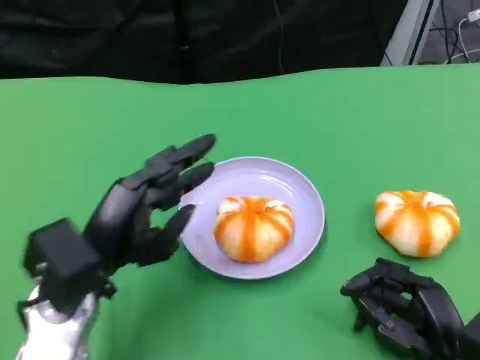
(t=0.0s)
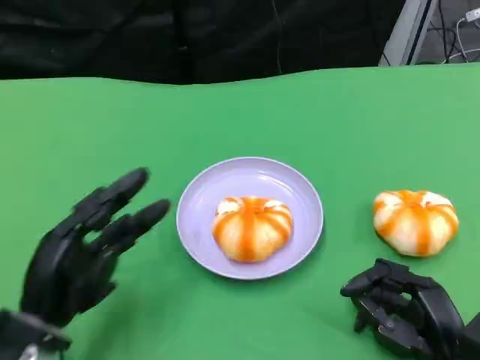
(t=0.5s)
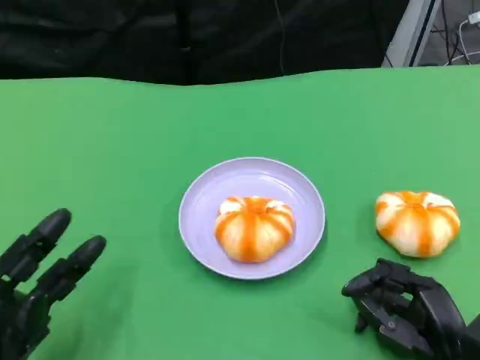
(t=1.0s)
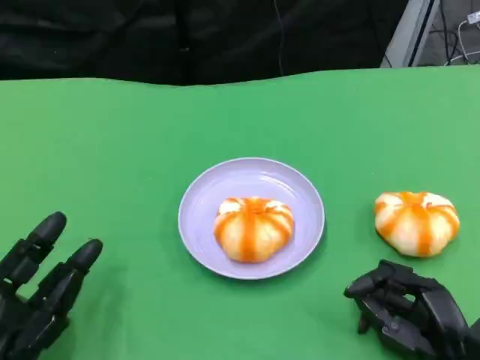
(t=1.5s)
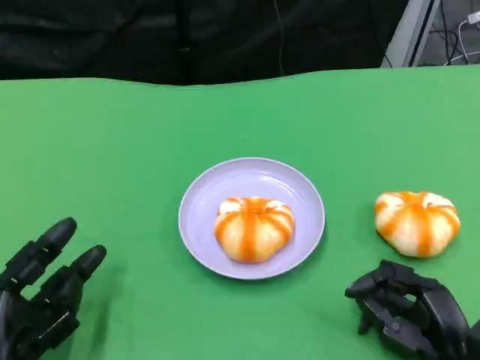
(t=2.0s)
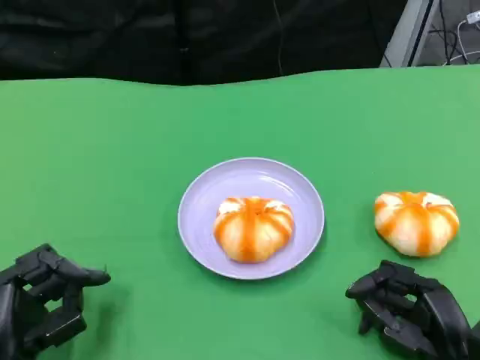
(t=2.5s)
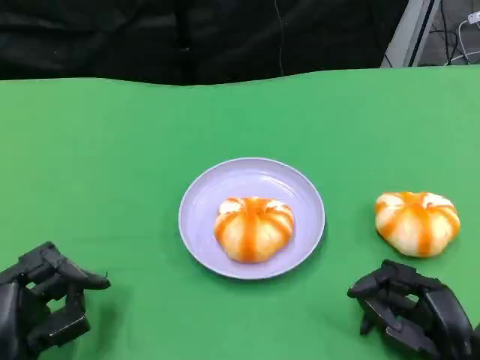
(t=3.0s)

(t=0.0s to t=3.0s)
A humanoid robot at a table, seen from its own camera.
Task of the whole recording: Grasp the bread from the table and place it into the plate.
t=0.0s - t=1.5s: The left hand heads downward, backward and to the left, covering about 15 cm.
t=1.5s - t=3.0s: There are only small adjustments of the hands.

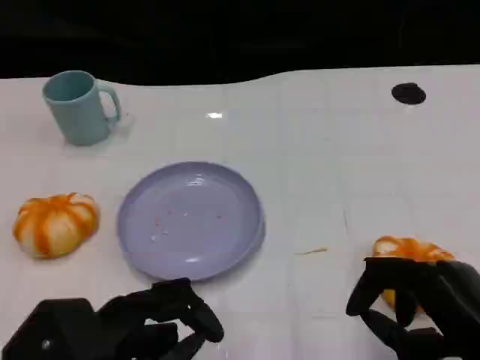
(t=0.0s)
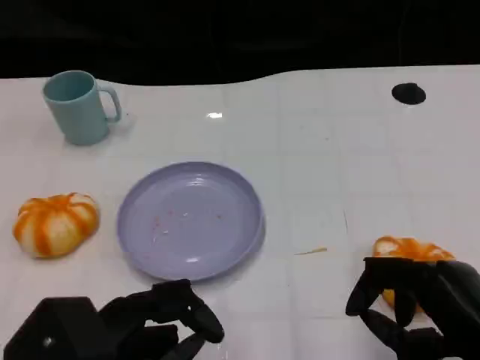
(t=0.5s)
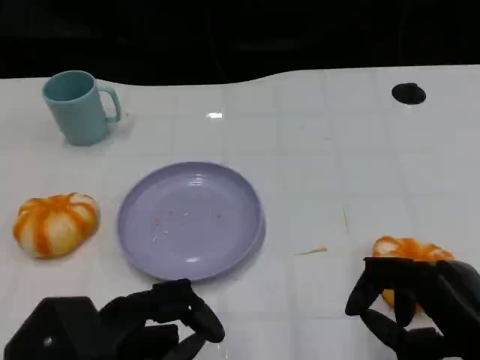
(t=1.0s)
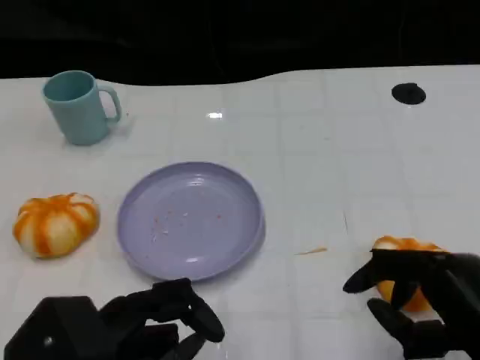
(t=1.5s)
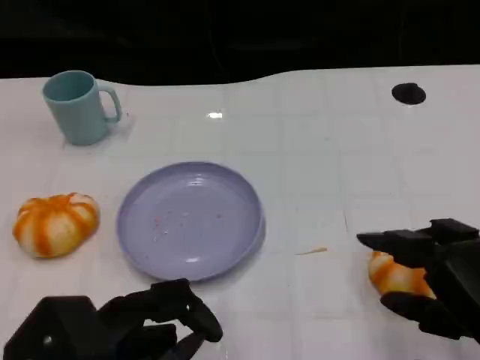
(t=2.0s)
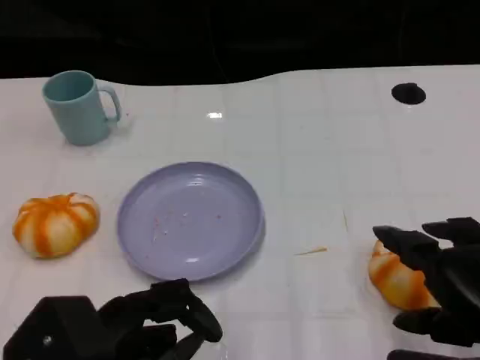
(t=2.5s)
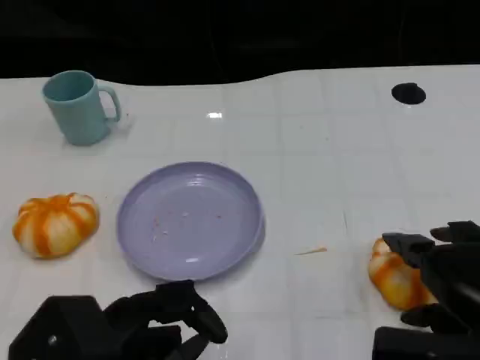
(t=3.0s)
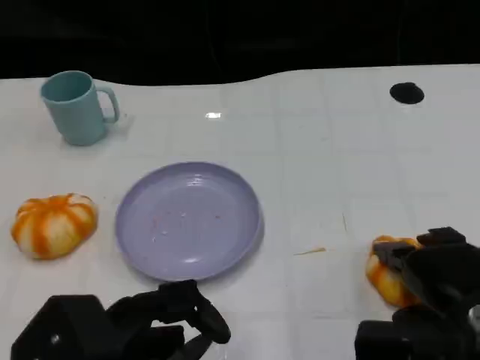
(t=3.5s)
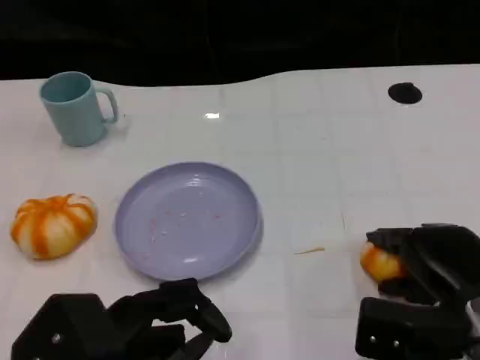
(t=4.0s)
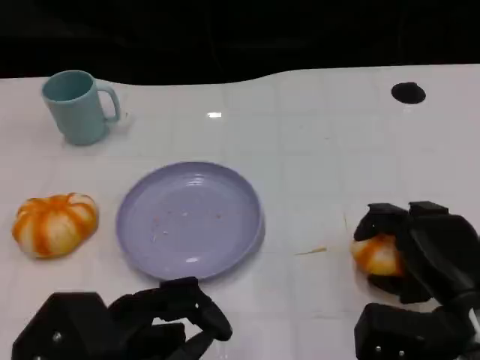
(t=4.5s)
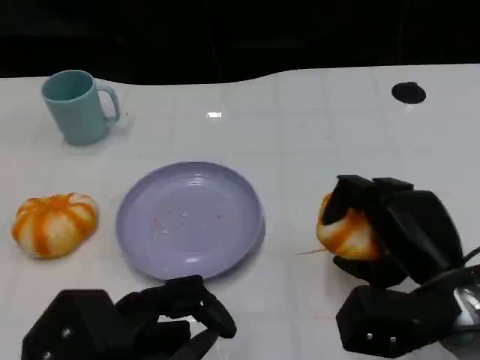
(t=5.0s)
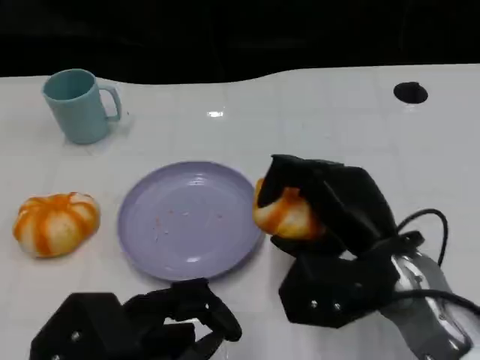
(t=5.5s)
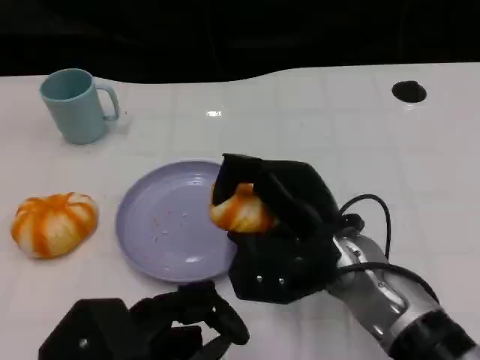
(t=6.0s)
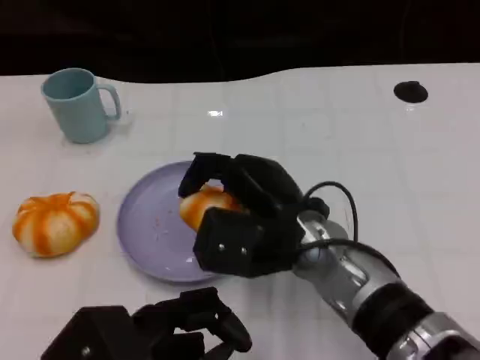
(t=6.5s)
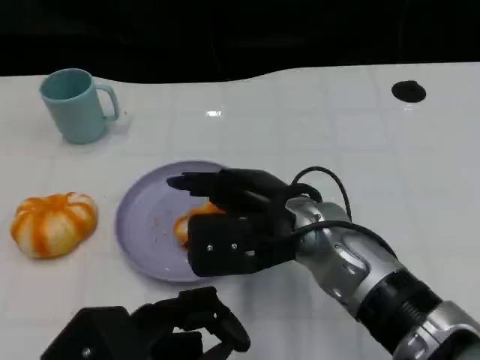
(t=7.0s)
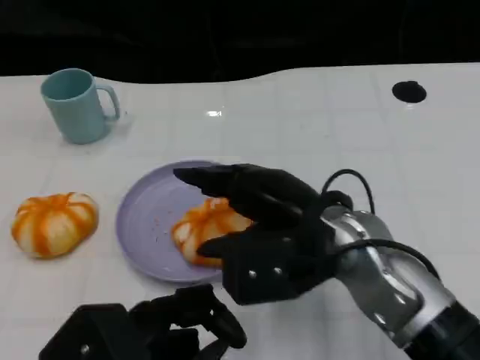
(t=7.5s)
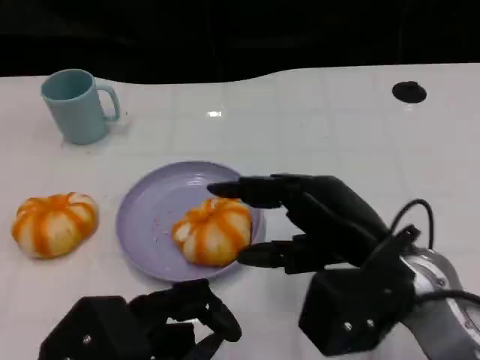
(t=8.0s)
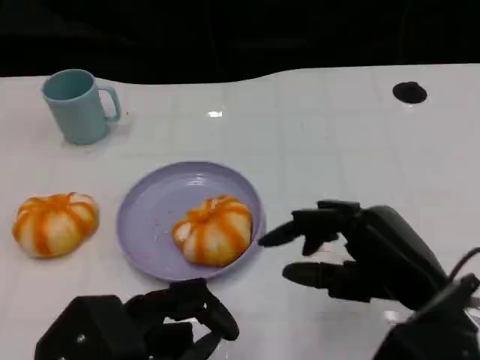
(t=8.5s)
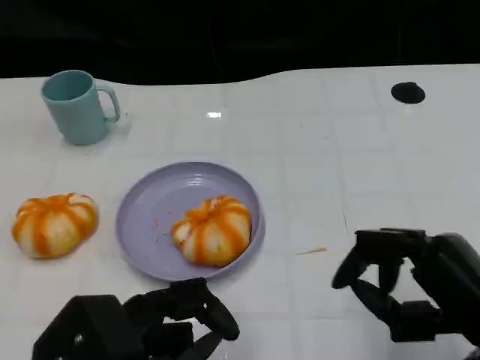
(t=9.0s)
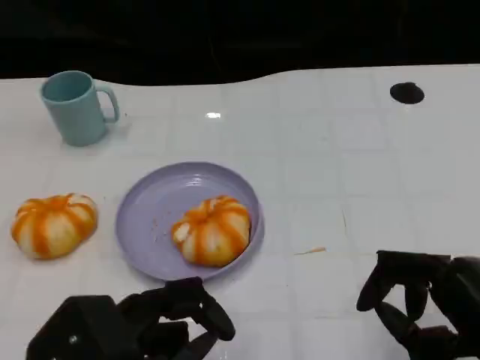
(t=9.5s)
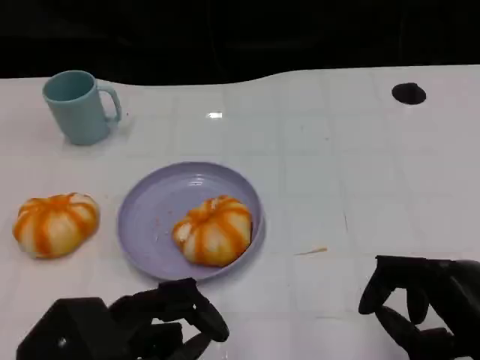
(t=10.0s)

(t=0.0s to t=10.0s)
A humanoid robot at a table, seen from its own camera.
Task of the whole recording: Grasp the bread from the table and place it into the plate.
t=2.0s - t=4.0s: The right hand heads downward and forward, covering about 10 cm.
t=4.0s - t=6.0s: The right hand heads to the left, covering some 15 cm.
t=6.0s - t=8.0s: The right hand shifts approximately 5 cm to the right.
t=8.0s - t=10.0s: The right hand goes approximately 10 cm to the right and backward.
